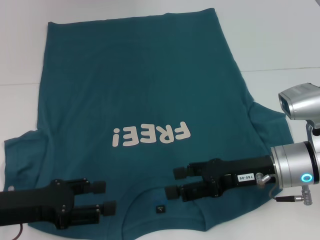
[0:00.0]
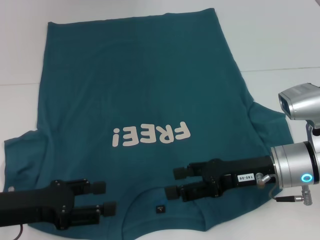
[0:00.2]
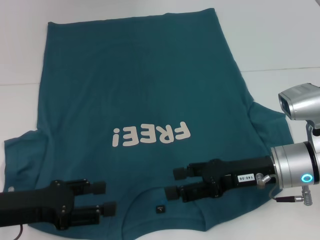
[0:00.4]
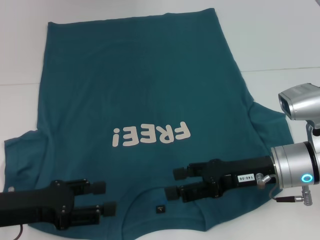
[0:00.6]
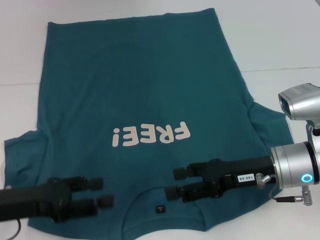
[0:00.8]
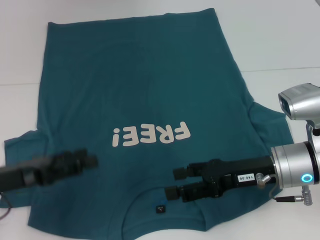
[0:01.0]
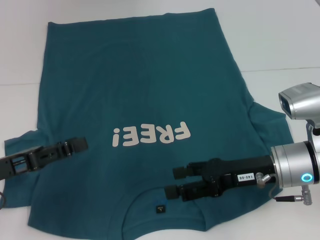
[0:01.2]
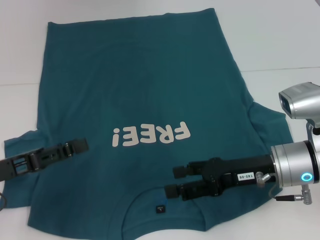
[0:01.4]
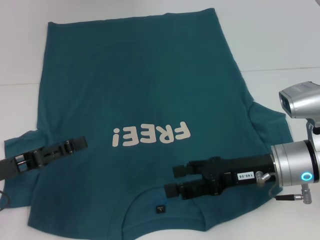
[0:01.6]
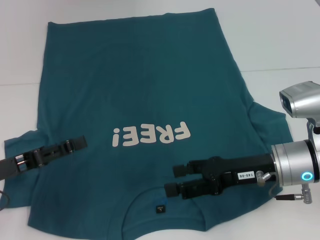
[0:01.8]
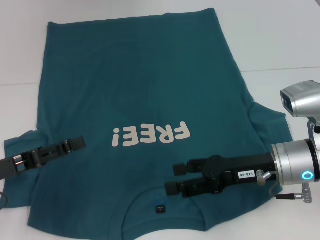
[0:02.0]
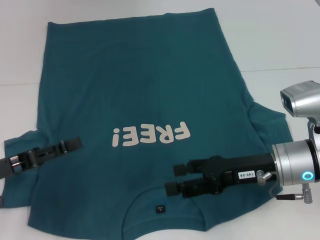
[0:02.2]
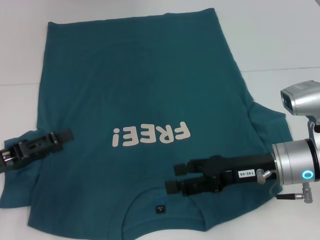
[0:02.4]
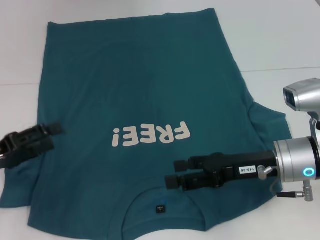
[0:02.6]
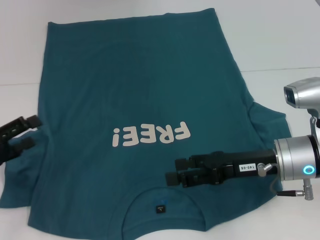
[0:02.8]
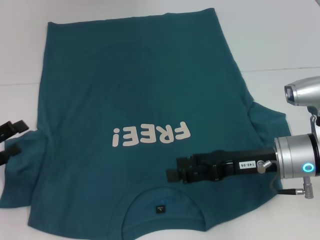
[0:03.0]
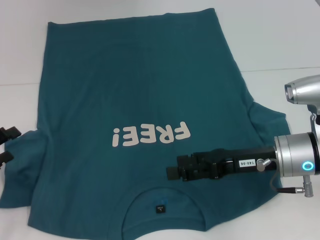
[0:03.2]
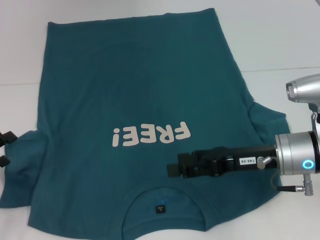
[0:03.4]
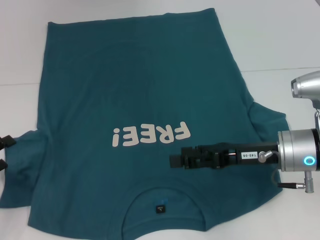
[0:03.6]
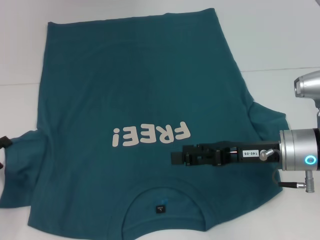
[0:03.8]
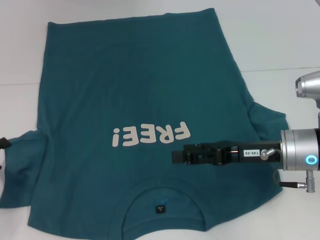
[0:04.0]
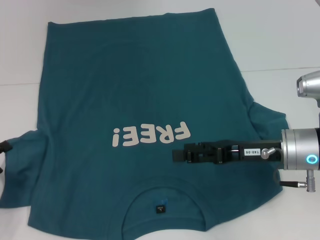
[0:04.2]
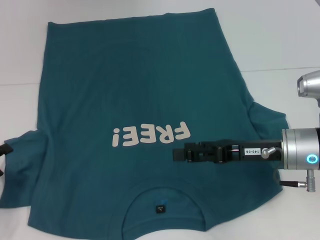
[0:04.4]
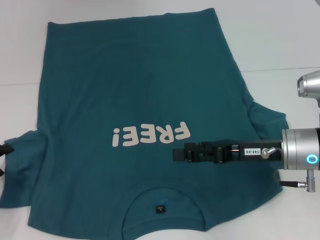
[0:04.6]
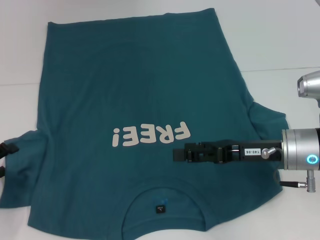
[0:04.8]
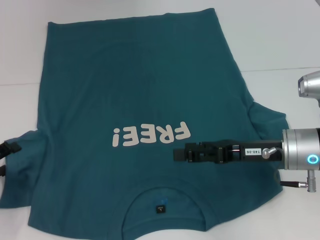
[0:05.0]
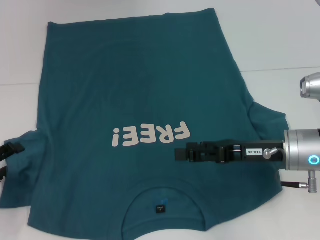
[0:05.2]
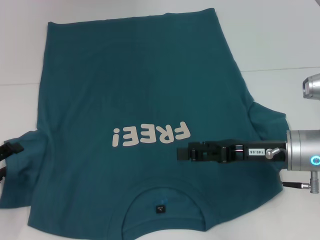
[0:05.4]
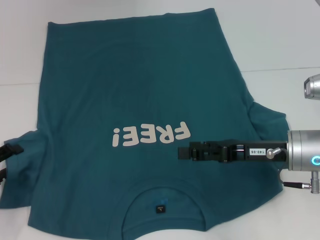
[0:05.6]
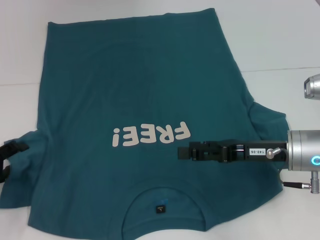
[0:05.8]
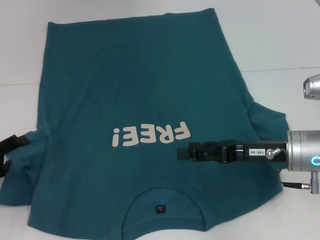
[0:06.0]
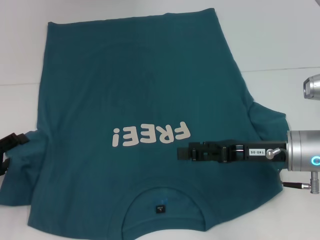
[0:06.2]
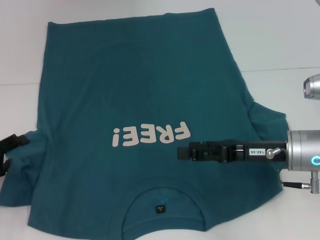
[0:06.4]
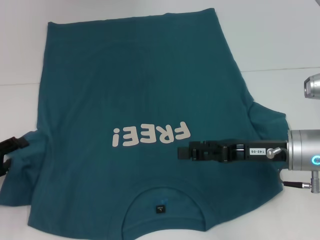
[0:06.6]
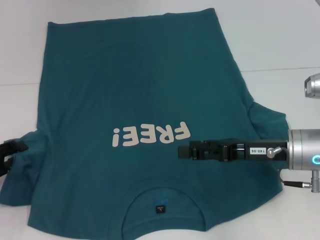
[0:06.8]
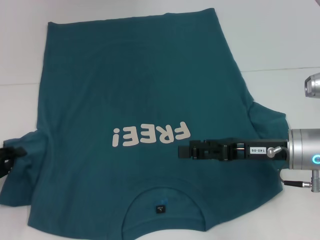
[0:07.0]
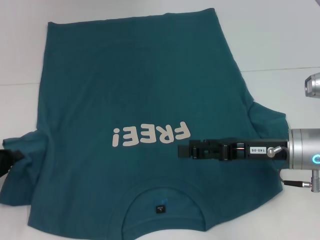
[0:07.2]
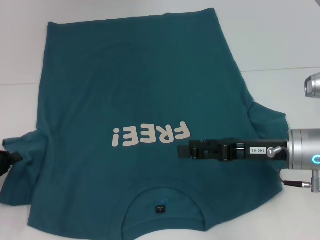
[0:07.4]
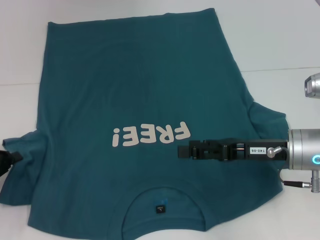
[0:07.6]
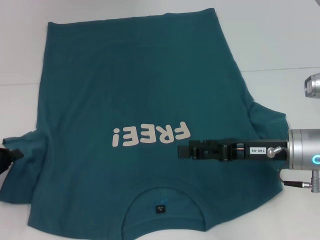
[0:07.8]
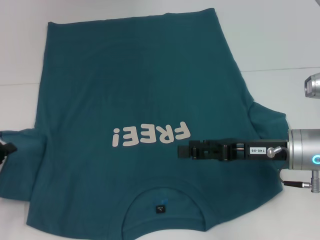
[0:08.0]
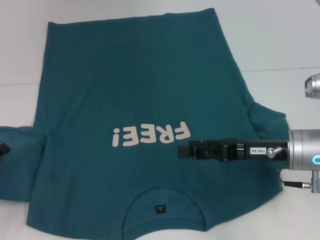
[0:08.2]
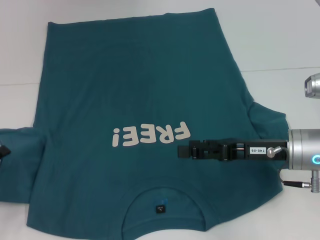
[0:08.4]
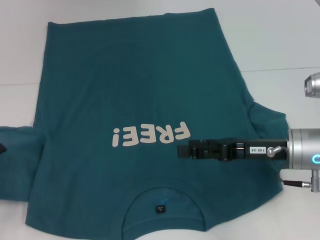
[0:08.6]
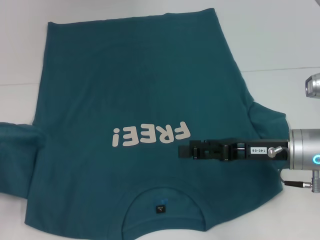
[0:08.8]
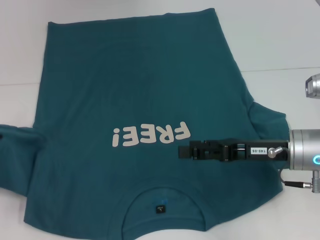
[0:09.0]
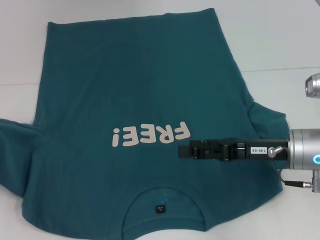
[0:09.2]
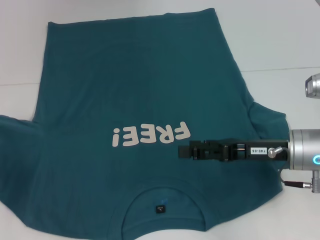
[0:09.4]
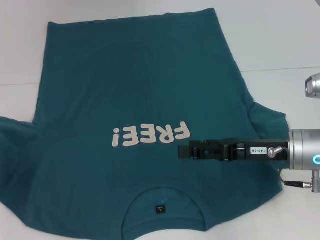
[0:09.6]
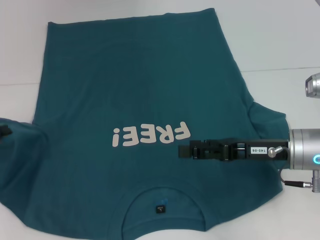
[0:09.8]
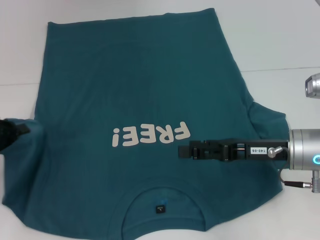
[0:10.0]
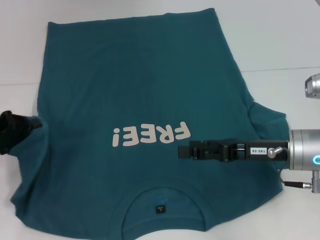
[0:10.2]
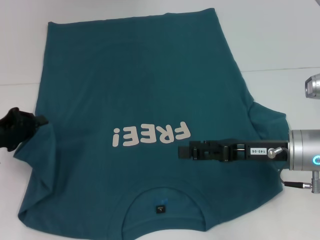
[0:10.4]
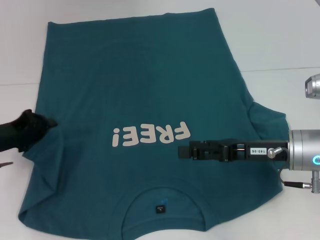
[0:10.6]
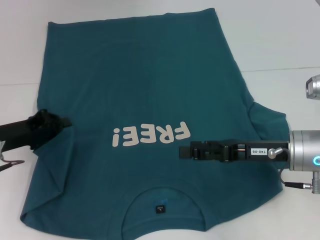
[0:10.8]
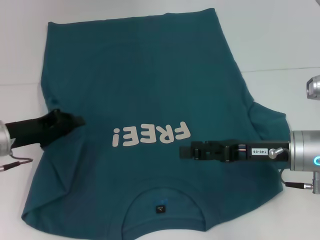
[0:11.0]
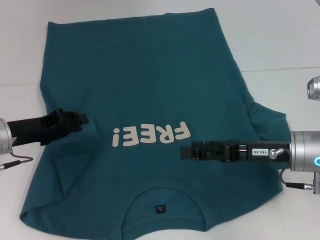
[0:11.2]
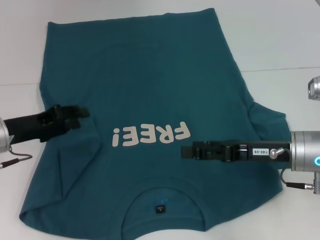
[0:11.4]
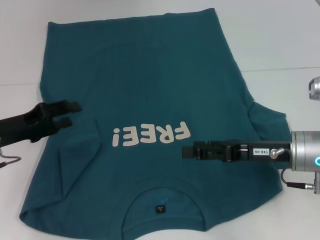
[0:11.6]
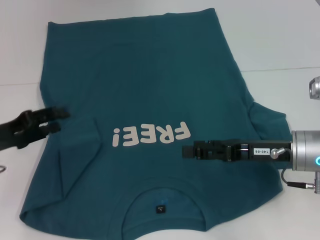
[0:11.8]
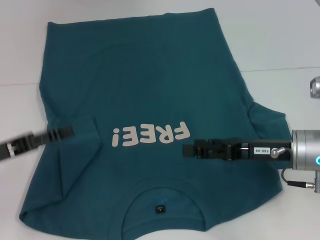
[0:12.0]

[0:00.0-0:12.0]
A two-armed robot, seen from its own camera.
Step, 0:00.0 to 0:11.4: Fold the bottom left sleeve with your left hand.
0:01.6 to 0:03.0: The left gripper is displaced to the left by about 5 cm.
0:03.0 to 0:06.0: The grippers make only small movements.
0:06.0 to 0:07.6: The left gripper closes.
0:07.6 to 0:09.0: The grippers move only a little.
0:09.0 to 0:10.4: The left gripper goes roughly 5 cm to the right.
0:10.4 to 0:12.0: The left gripper opens up.

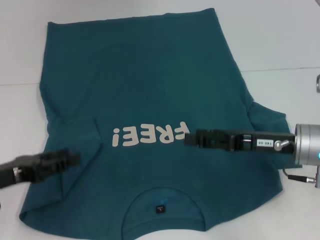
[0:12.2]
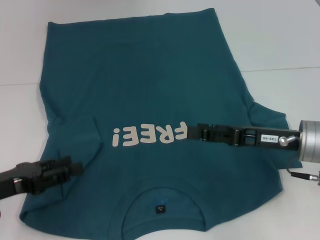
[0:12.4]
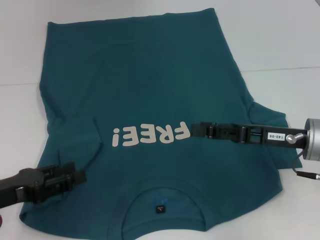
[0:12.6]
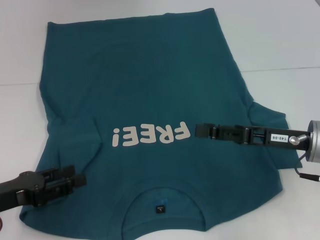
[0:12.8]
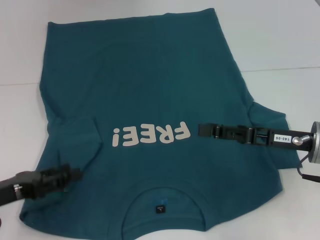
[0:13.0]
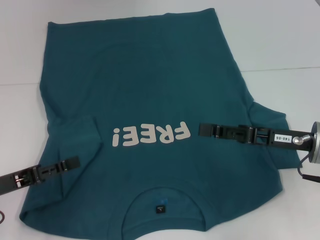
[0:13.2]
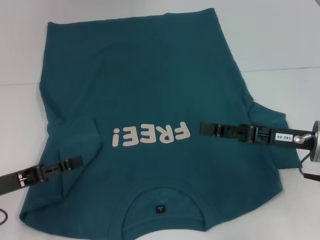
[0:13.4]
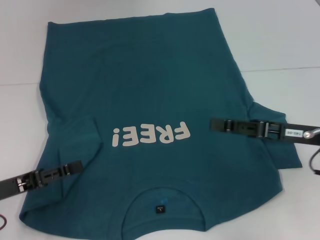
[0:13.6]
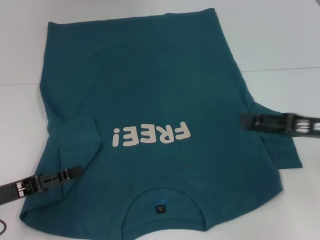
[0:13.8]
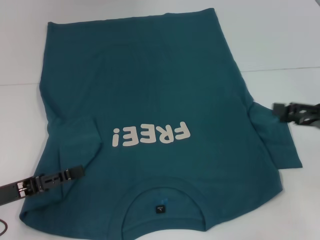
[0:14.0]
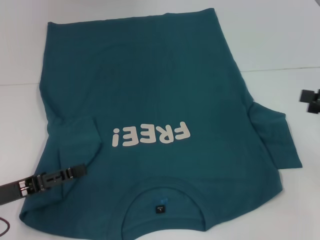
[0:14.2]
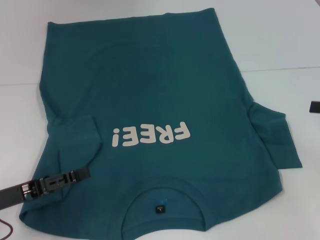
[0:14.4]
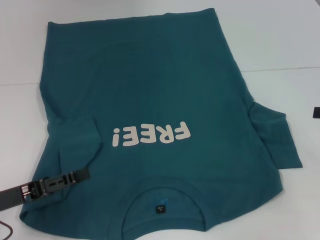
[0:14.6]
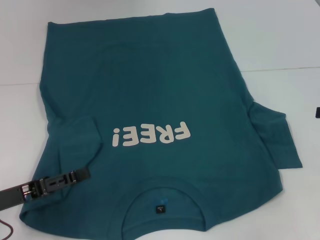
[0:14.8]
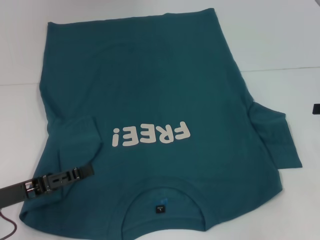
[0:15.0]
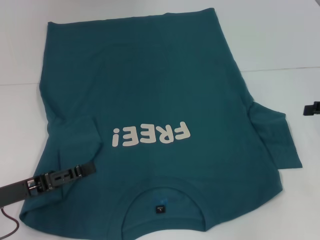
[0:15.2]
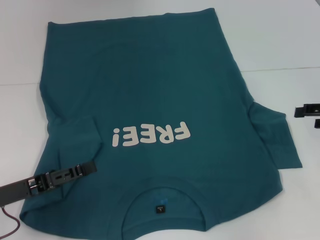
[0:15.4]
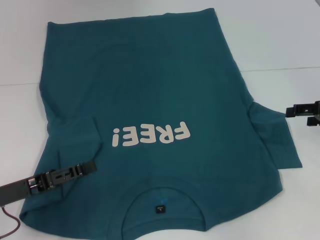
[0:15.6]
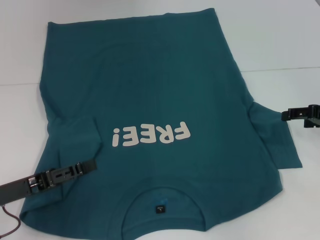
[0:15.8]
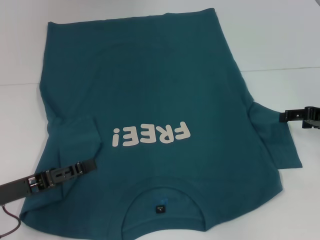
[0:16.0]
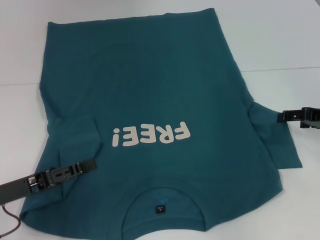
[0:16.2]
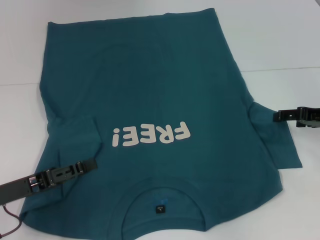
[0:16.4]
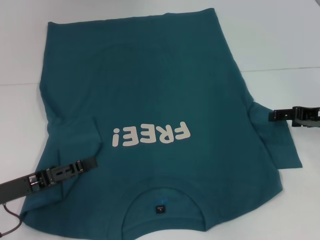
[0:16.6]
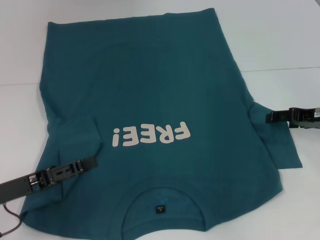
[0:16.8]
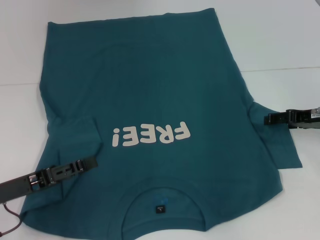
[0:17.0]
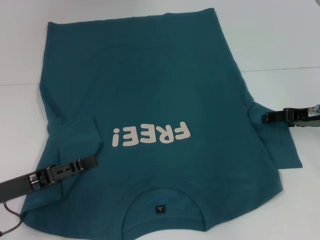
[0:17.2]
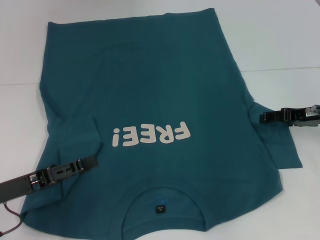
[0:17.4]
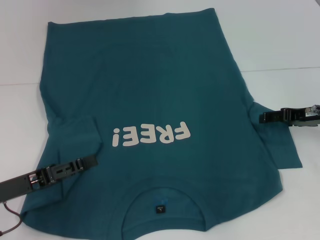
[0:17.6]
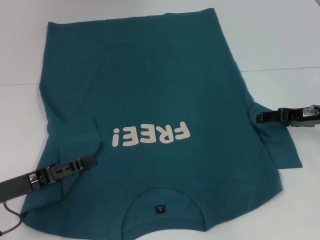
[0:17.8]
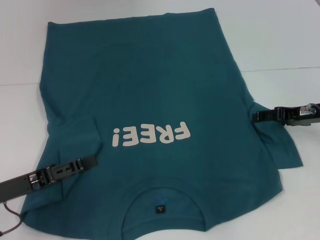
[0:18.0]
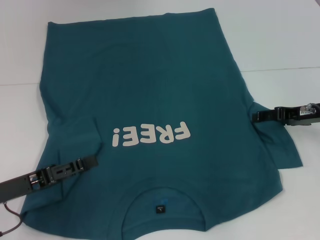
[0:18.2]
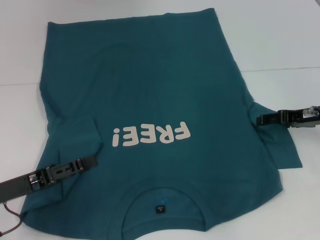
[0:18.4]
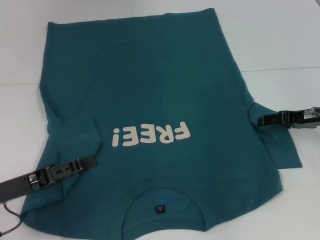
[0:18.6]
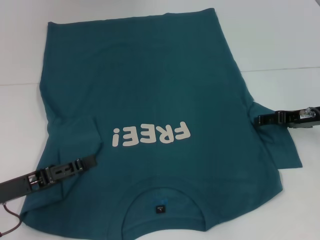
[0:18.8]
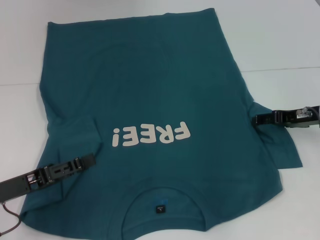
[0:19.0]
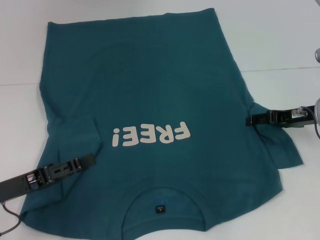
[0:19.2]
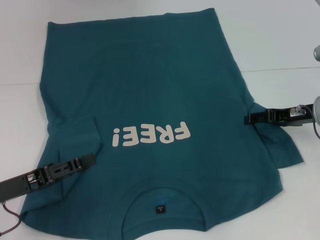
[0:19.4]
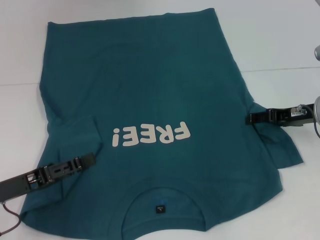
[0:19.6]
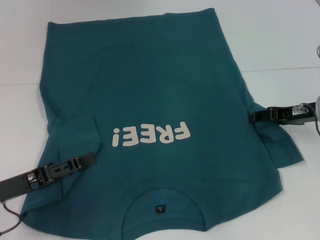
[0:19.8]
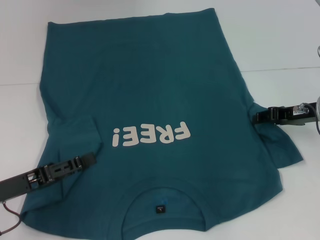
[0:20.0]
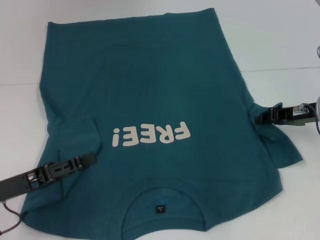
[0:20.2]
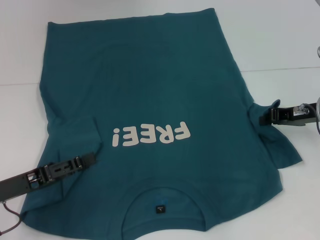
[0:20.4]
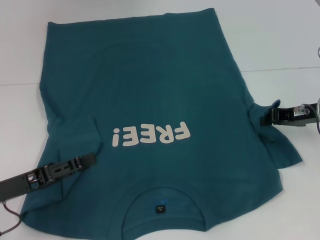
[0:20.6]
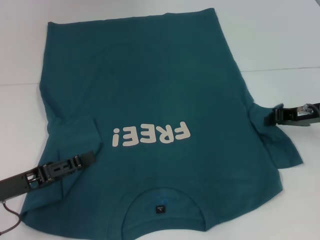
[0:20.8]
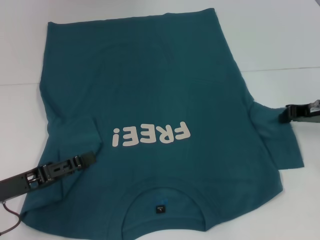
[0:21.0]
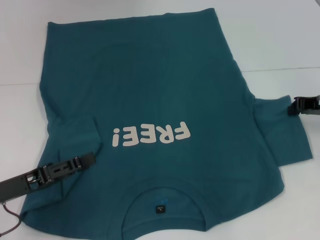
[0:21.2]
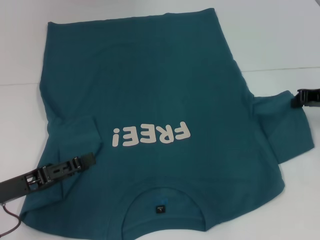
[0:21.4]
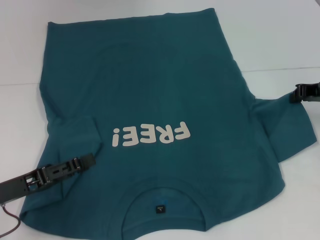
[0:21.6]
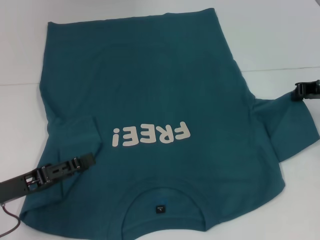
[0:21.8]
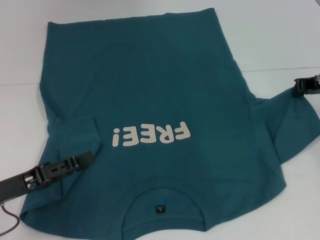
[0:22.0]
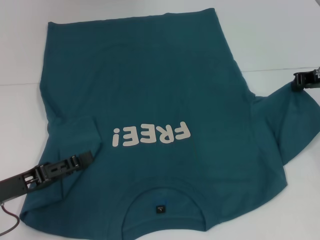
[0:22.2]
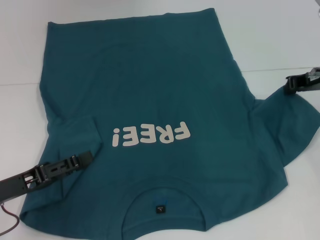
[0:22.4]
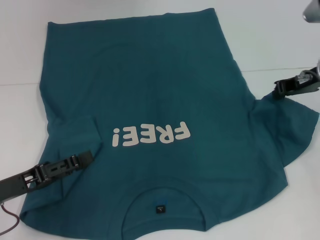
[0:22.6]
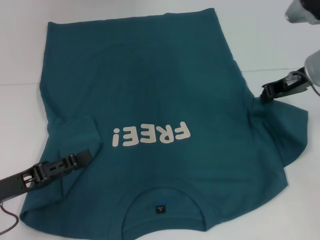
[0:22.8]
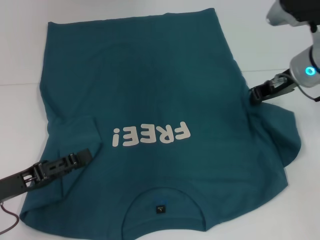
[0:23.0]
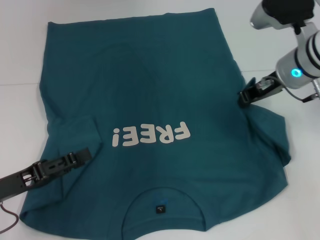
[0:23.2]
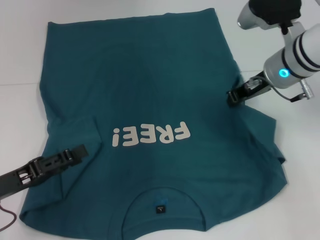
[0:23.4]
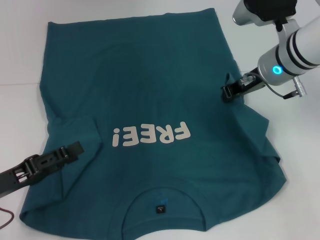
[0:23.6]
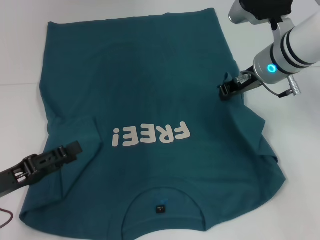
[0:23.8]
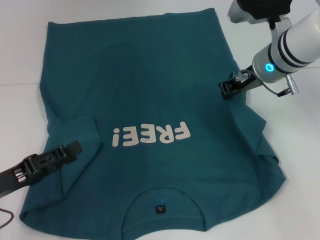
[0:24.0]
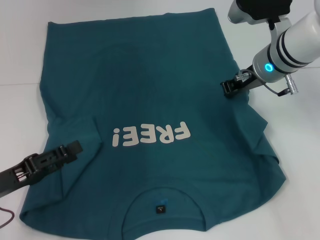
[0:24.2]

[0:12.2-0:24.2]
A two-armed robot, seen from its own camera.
0:12.2 to 0:13.8: The right gripper moves to the right, approximately 10 cm.
0:13.8 to 0:15.2: The right gripper shifts some 10 cm to the right.
0:15.2 to 0:16.6: The right gripper moves to the left, roughly 5 cm.
0:16.6 to 0:19.8: The grippers stay close to where they were, moving slightly.
0:19.8 to 0:21.2: The right gripper closes its fingers.
0:21.2 to 0:22.6: The right gripper shifts by roughly 5 cm.
0:22.6 to 0:24.2: The right gripper is displaced to the left by about 10 cm.
